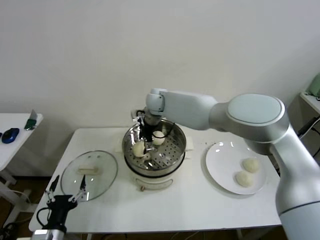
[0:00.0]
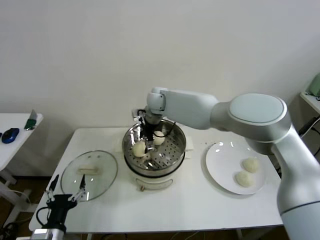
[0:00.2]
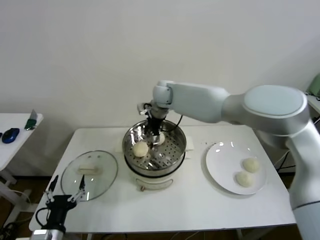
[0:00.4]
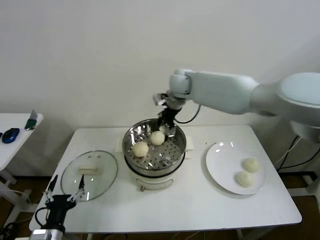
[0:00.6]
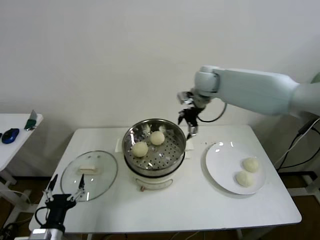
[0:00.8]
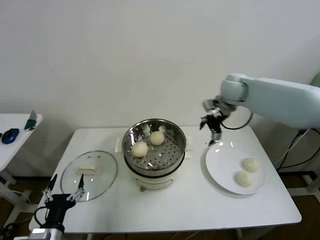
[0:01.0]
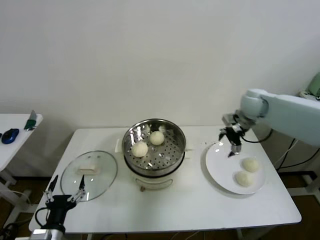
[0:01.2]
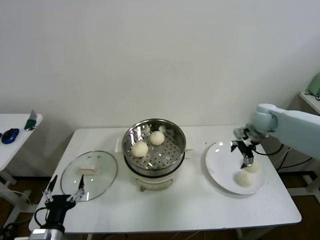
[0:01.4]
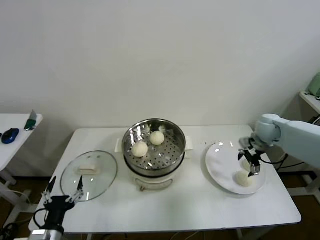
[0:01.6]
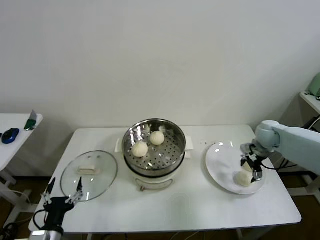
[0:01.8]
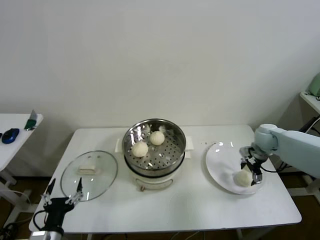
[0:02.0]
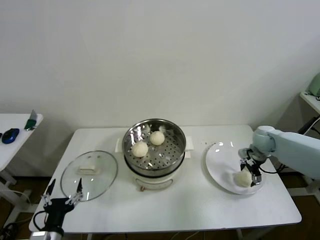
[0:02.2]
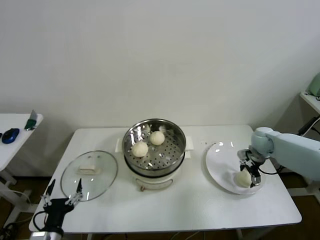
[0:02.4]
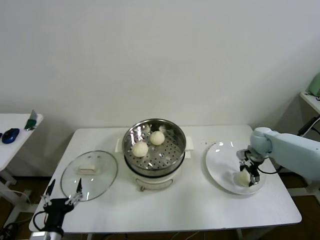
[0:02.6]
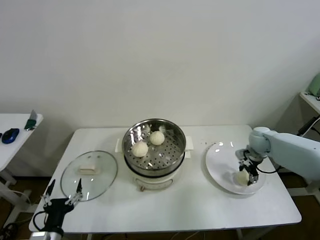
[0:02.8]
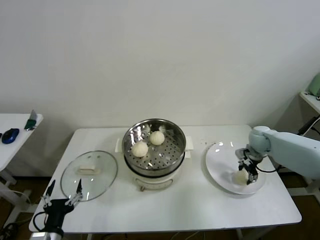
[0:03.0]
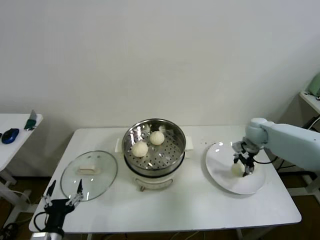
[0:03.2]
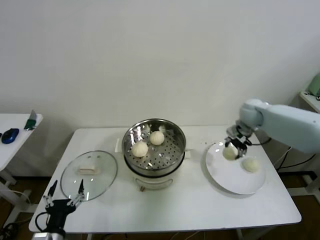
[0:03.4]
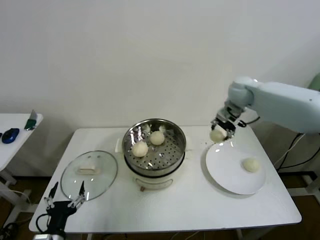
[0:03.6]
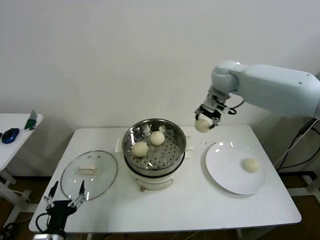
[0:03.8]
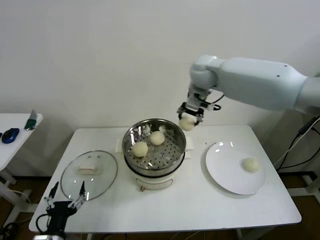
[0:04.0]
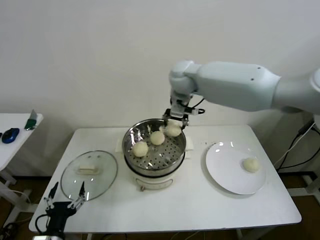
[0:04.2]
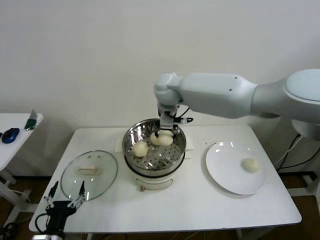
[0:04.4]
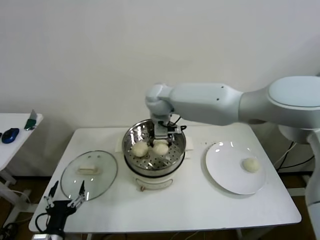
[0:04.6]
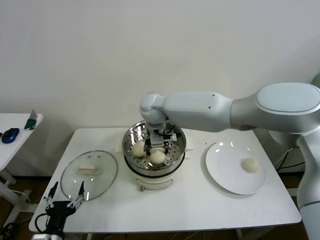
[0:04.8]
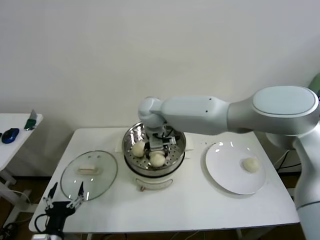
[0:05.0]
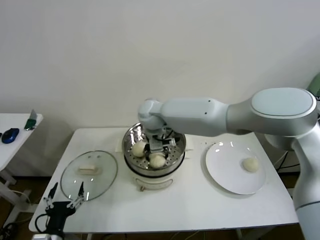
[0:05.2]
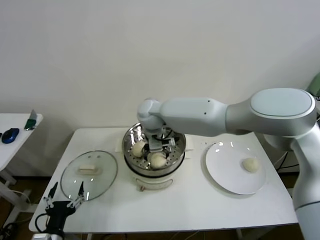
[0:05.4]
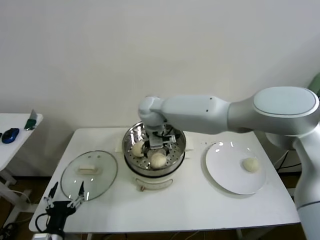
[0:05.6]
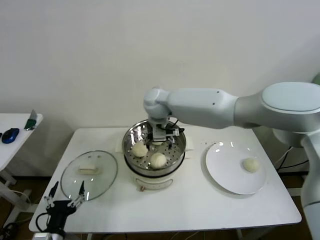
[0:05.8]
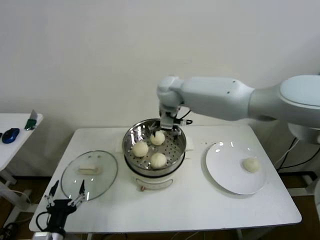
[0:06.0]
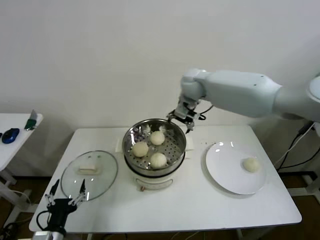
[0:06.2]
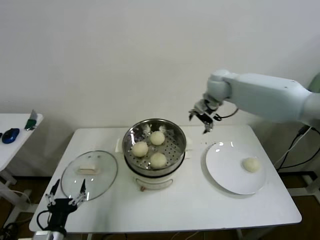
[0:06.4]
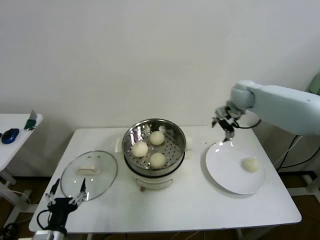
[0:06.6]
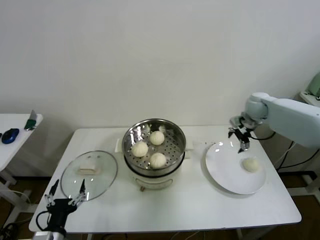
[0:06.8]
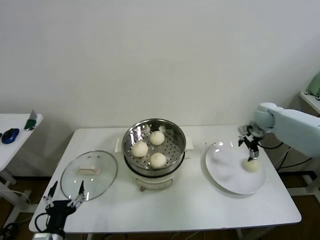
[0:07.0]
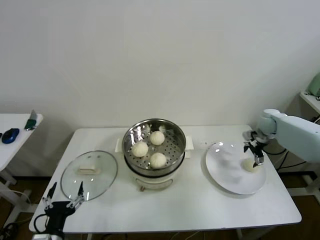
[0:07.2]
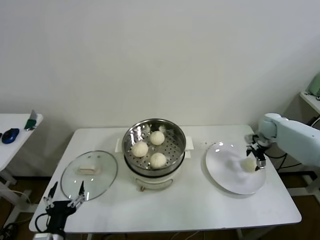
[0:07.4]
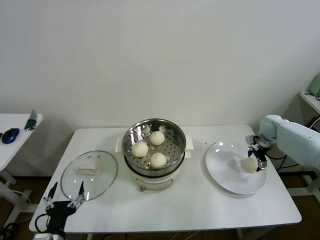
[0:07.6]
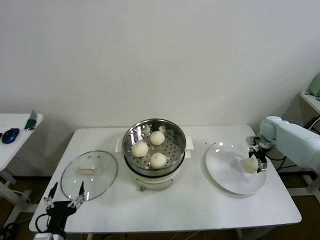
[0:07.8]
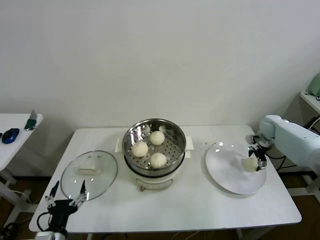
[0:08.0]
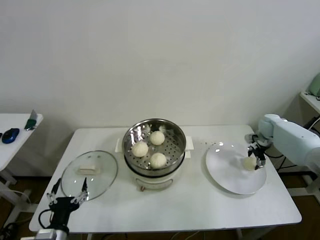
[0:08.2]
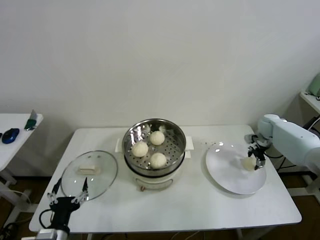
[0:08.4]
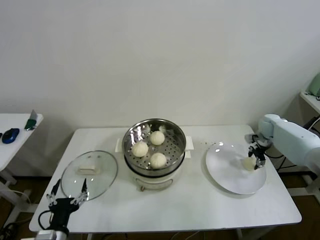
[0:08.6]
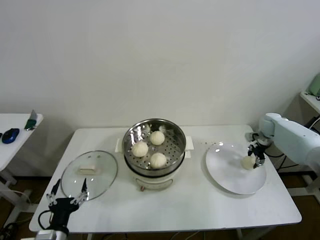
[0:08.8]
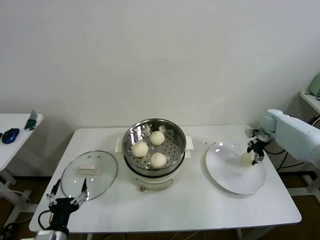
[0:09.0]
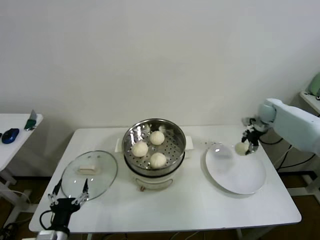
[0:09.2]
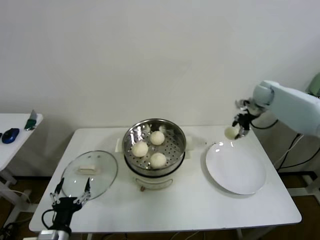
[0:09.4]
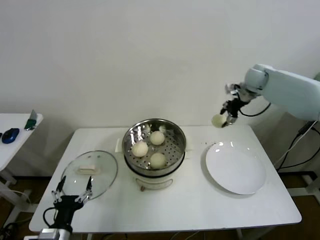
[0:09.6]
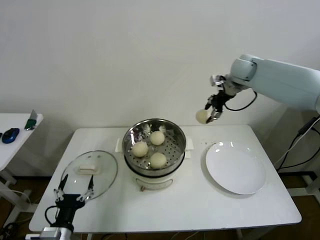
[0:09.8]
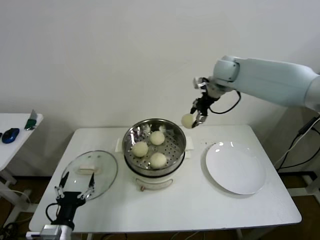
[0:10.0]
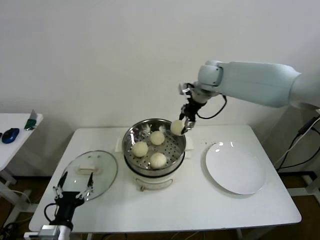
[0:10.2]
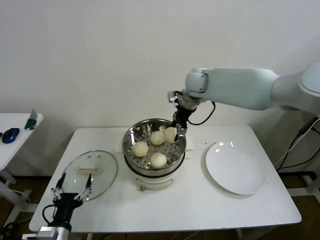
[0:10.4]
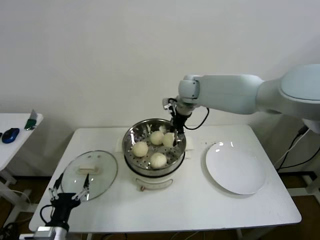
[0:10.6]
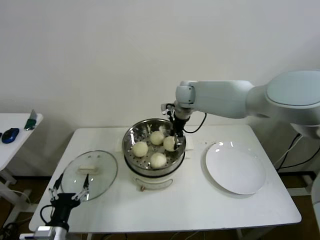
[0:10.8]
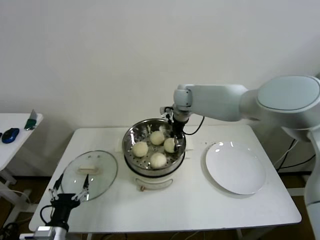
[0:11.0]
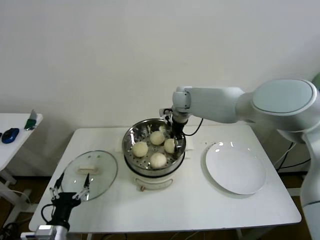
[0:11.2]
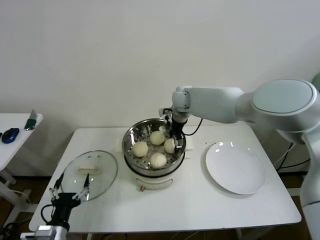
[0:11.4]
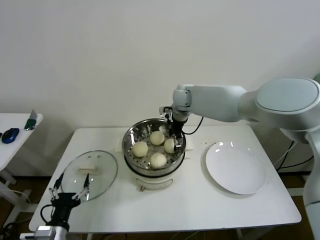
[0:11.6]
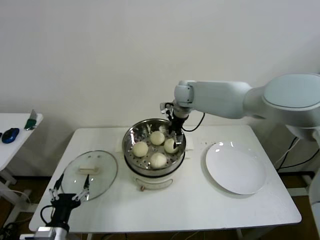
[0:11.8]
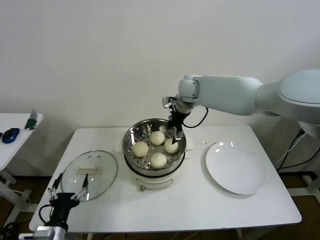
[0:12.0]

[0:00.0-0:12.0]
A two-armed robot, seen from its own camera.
Step, 0:00.0 to 0:02.6: Grasp the baozi in the plate with right gripper.
Step, 0:02.8 to 0:05.2: Place the baozi on the steamer with right gripper.
Step, 0:05.4 to 0:08.4: Grasp the baozi in the plate with right gripper.
Step, 0:08.6 to 0:11.2: Place the baozi on the steamer with right gripper.
0:00.0 to 0:01.6: The right gripper heads to the right, covering roughly 40 cm.
0:01.6 to 0:03.0: The right gripper heads downward, covering approximately 5 cm, and closes up.
0:03.0 to 0:04.4: The right gripper goes roughly 40 cm to the left and upward.
0:04.4 to 0:06.0: The right gripper travels downward and back again, about 10 cm each way, and opens its fingers.
0:06.0 to 0:07.6: The right gripper travels to the right and downward by some 50 cm.
0:07.6 to 0:09.0: The right gripper closes up.
0:09.0 to 0:10.4: The right gripper is displaced to the left and upward by roughly 40 cm.
0:10.4 to 0:12.0: The right gripper opens its fingers.

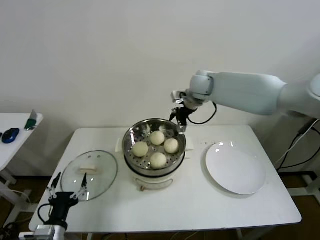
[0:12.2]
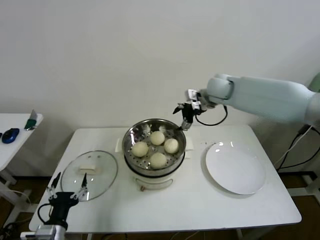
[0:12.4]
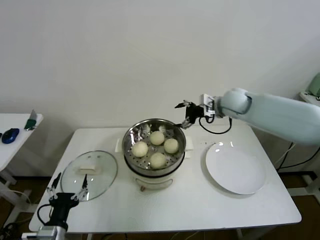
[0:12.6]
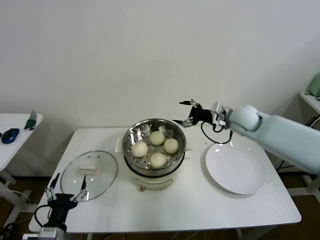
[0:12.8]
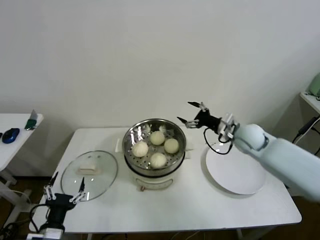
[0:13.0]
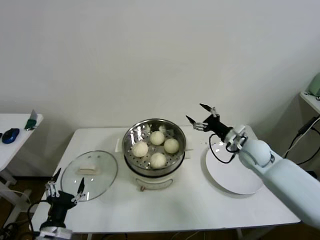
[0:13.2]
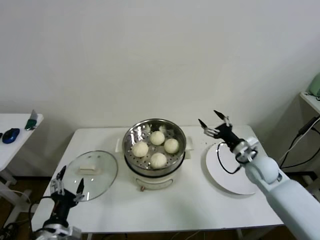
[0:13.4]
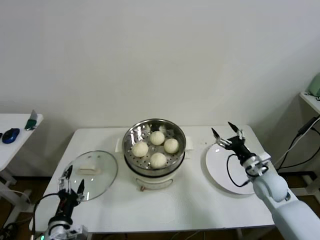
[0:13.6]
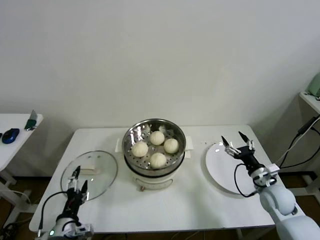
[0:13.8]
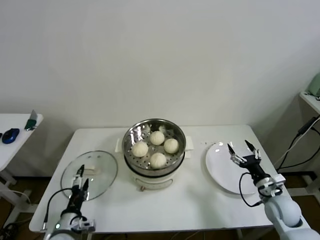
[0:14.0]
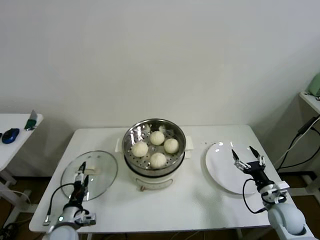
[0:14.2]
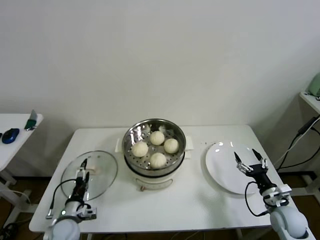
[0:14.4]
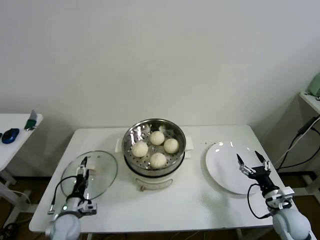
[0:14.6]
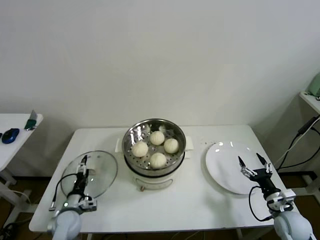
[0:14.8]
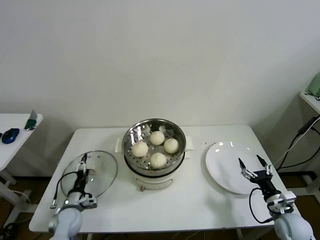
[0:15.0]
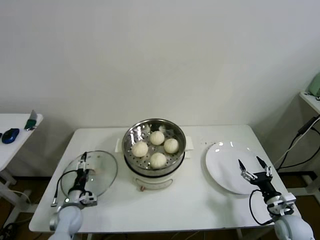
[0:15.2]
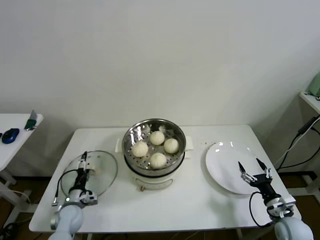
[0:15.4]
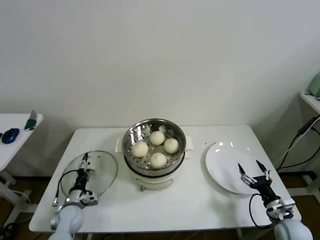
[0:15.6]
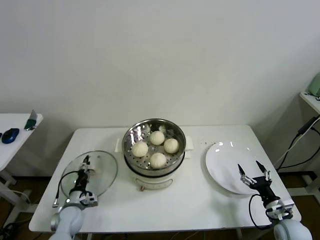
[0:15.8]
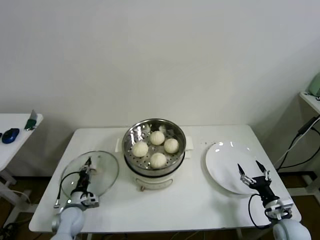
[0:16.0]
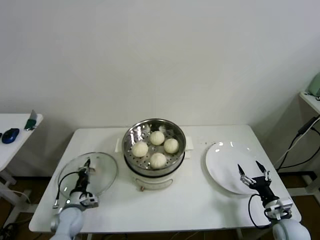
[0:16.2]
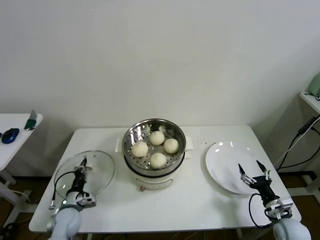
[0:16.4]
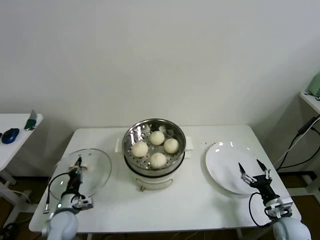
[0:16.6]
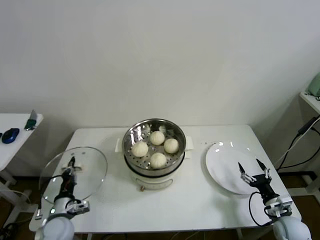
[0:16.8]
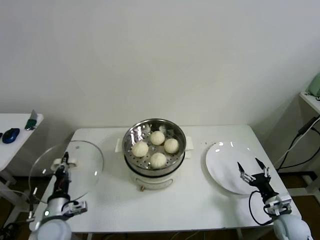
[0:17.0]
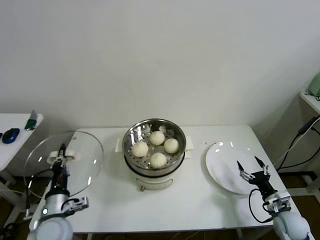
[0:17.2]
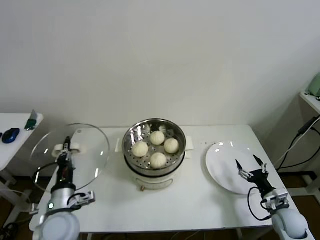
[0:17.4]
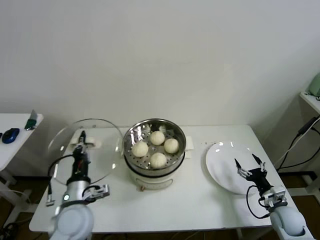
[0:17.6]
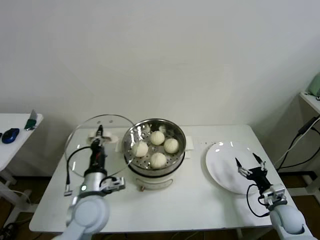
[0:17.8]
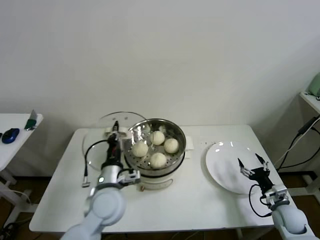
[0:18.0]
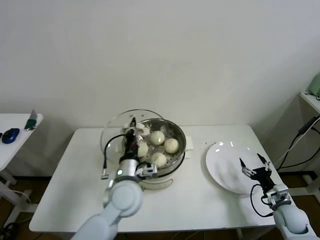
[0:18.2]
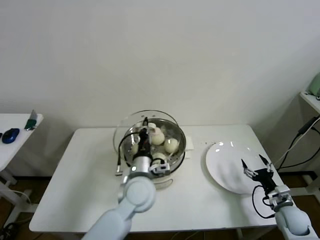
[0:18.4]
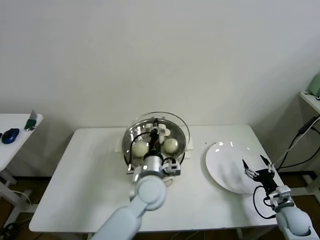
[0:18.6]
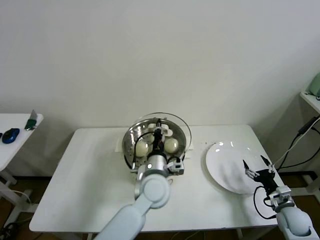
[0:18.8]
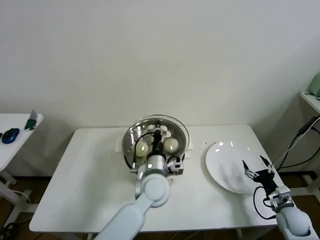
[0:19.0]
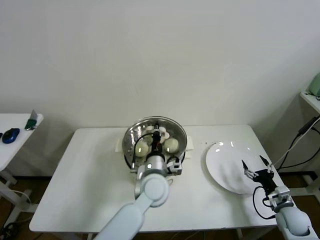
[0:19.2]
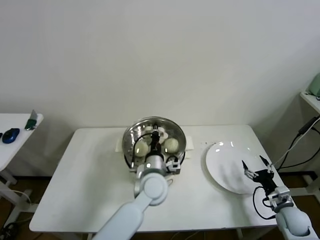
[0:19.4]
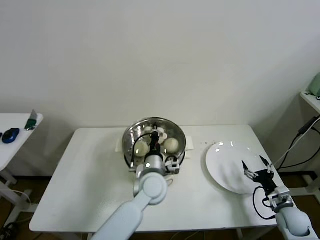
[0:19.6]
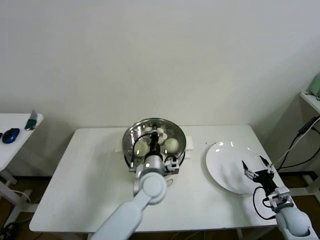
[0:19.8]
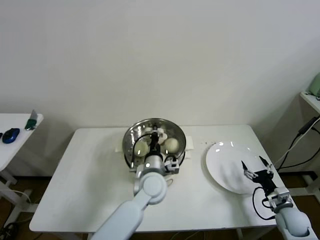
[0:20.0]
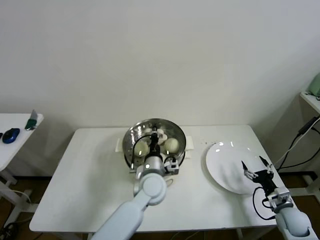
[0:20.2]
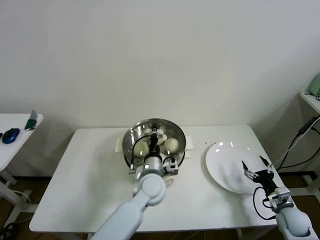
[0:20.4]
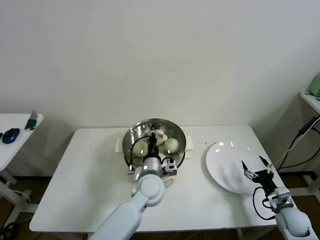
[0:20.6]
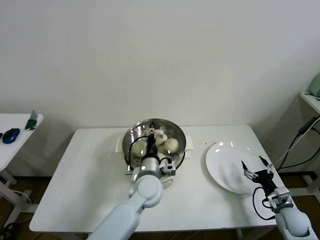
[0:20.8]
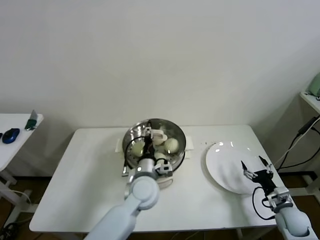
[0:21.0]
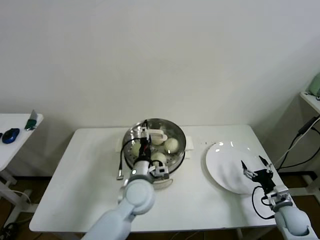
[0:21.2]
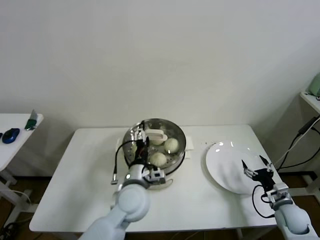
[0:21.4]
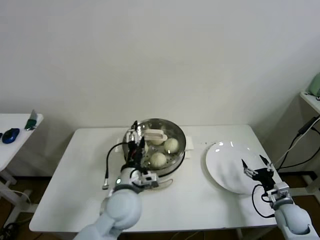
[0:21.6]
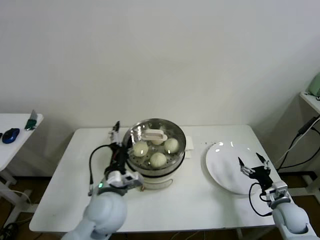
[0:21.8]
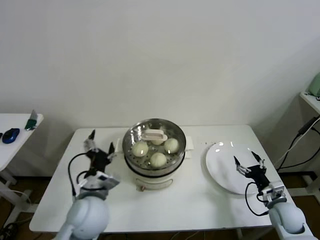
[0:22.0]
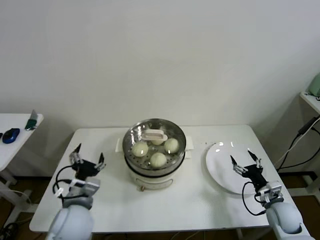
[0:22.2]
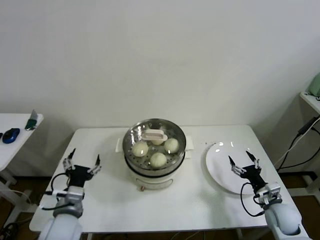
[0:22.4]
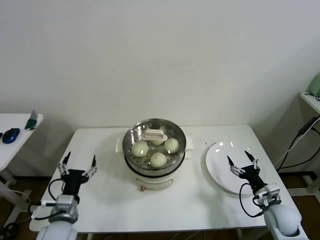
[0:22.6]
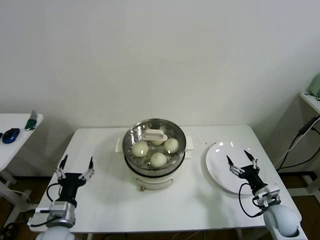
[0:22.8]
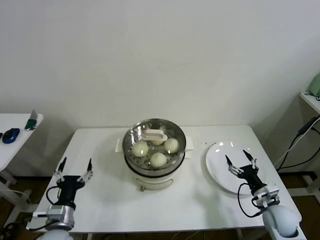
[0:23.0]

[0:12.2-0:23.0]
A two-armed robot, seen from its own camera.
Step, 0:12.2 to 0:16.0: Grasp the pot lid with left gripper.
Step, 0:16.2 to 0:20.6: Place the pot lid on the steamer with left gripper.
0:12.2 to 0:13.8: The right gripper moves downward, backward and to the right, roughly 50 cm.
0:13.8 to 0:15.2: The left gripper heads forward and downward, covering roughly 15 cm. The right gripper heads backward and downward, covering some 10 cm.
0:15.2 to 0:16.8: The left gripper shifts some 5 cm upward, and closes its fingers.
0:16.8 to 0:18.4: The left gripper shifts approximately 30 cm to the right and upward.
0:18.4 to 0:20.0: The left gripper moves roughly 5 cm.
0:20.0 to 0:21.4: The left gripper shifts by roughly 5 cm, and opens.
0:21.4 to 0:23.0: The left gripper moves to the left and backward, roughly 25 cm. The right gripper shifts roughly 5 cm to the left.
